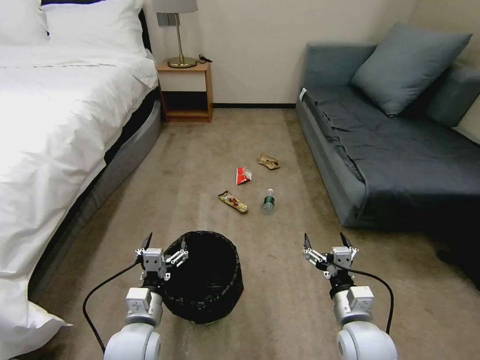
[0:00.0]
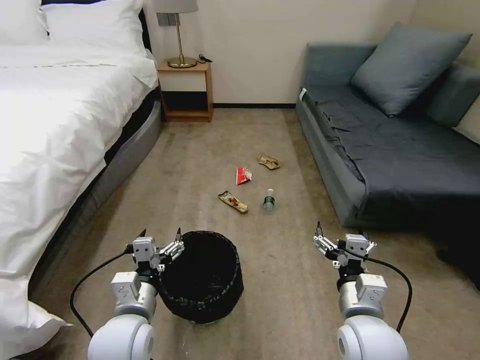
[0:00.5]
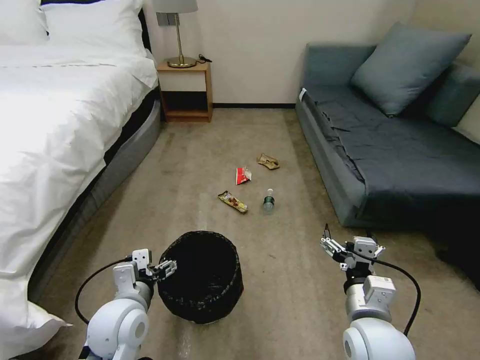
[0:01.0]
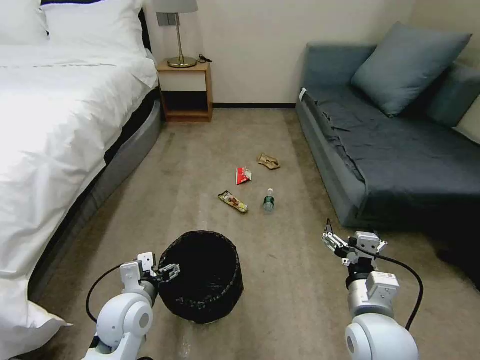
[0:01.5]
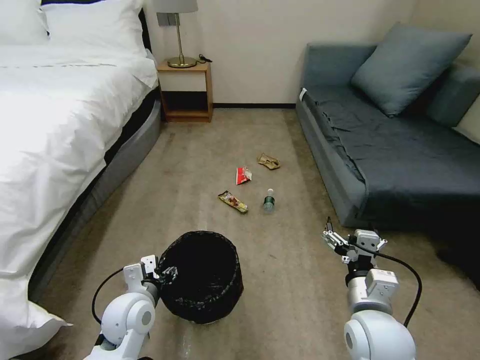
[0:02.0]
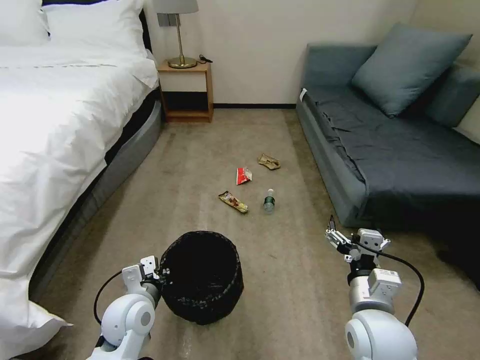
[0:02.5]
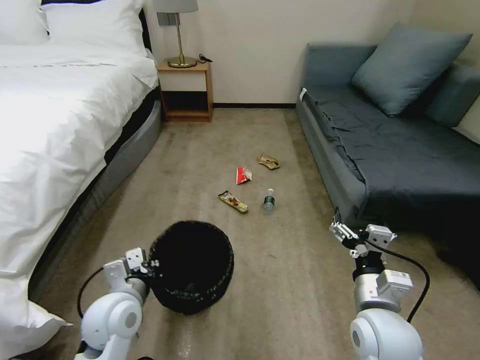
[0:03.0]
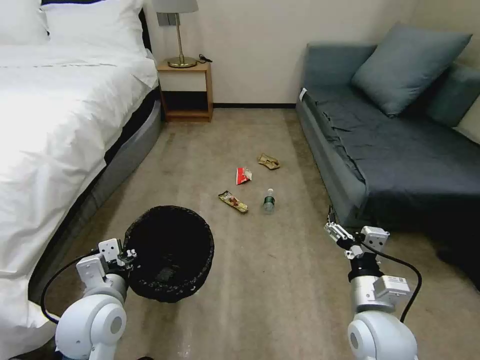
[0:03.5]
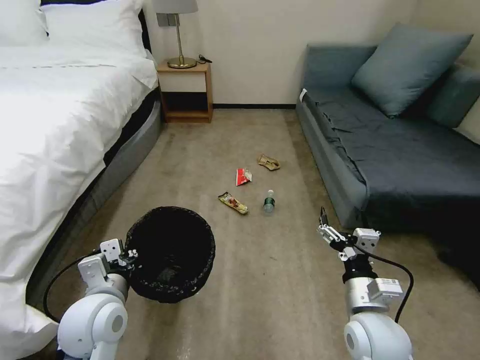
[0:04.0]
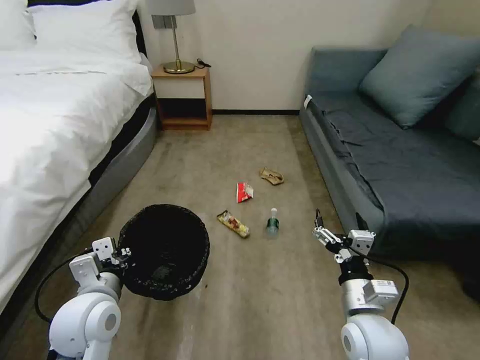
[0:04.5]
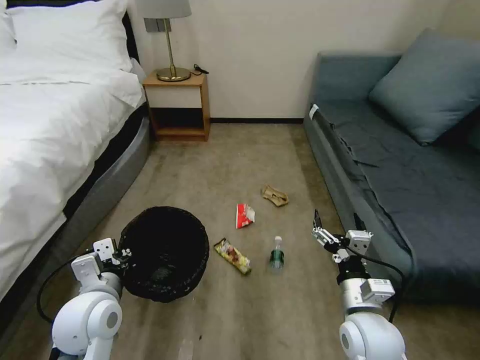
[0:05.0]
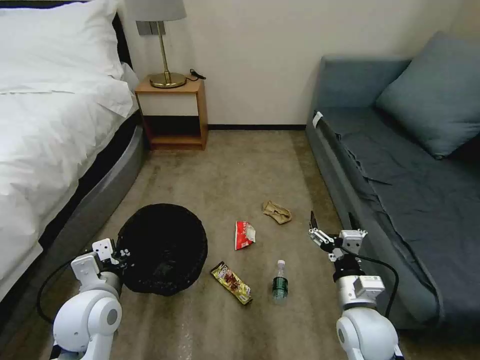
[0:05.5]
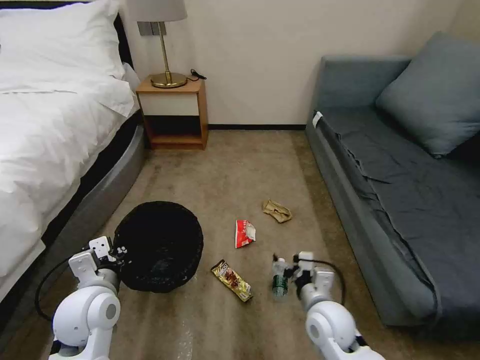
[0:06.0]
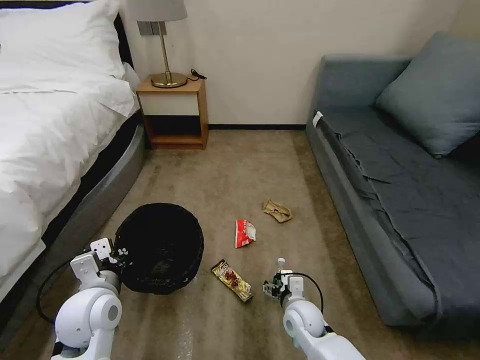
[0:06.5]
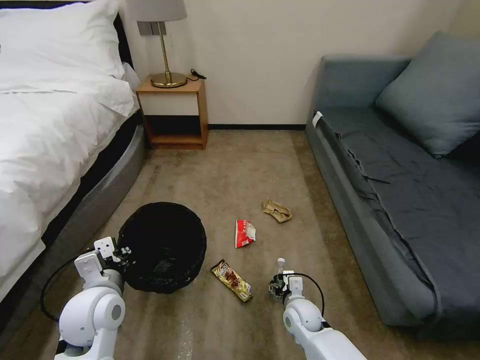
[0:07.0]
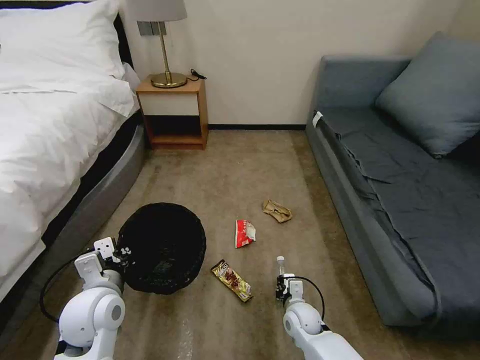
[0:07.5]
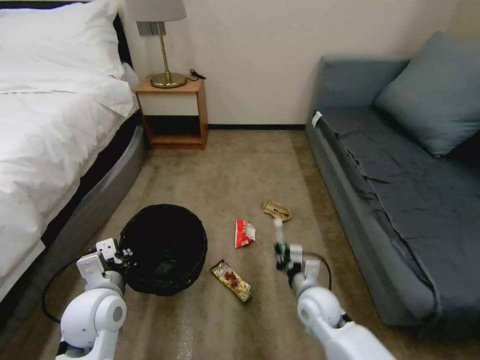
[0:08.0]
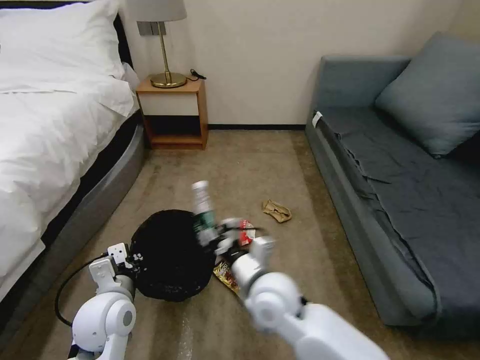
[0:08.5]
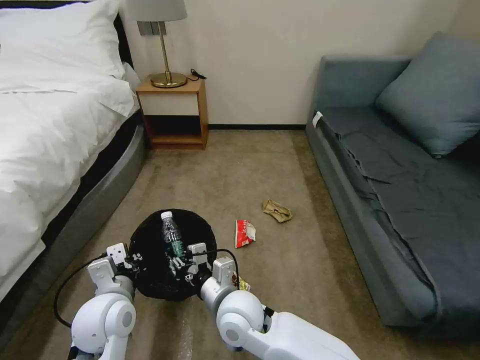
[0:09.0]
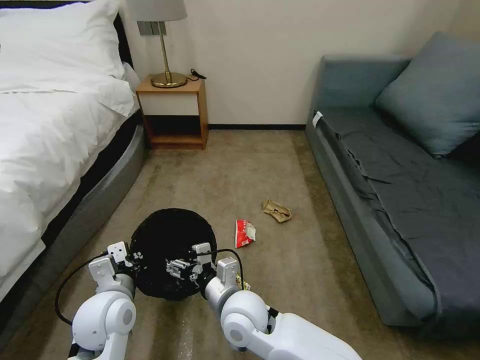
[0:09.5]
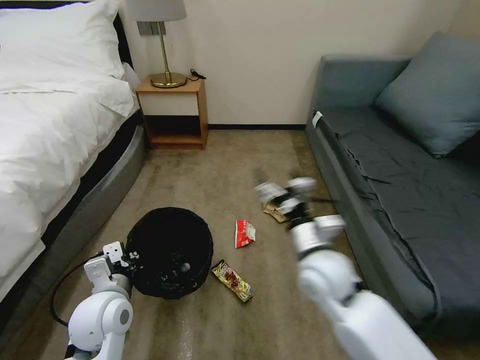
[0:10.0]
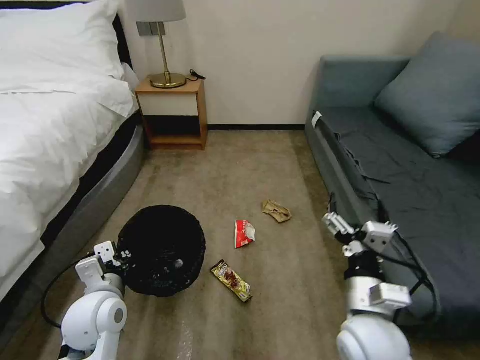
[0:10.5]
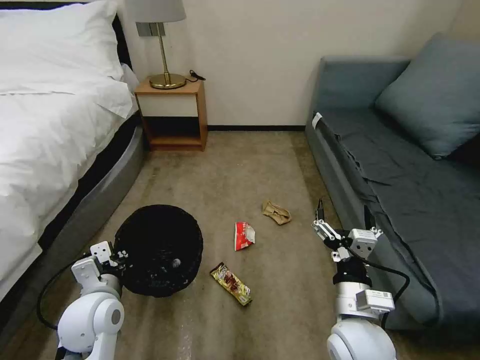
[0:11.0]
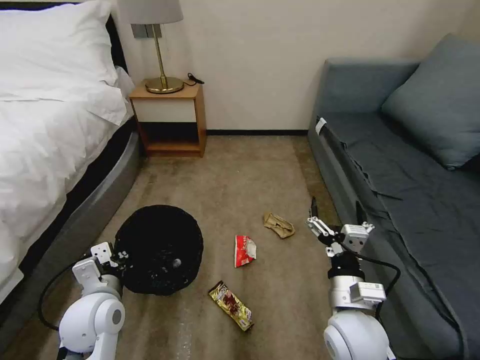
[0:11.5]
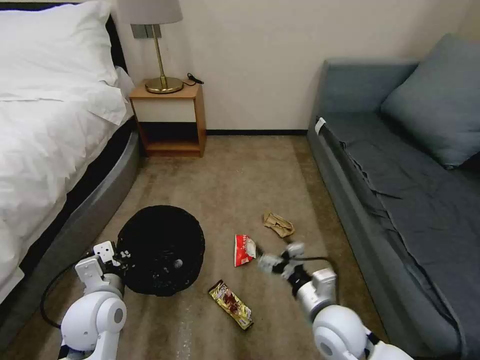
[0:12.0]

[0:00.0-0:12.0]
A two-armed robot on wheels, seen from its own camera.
Task of the whole recording: Pick up the trash bin, then pick up the garbage on the floor and place it into the trash bin.
0:02.0 to 0:04.0: The left gripper heads upward, covering approximately 10 cm, and closes up.
0:04.0 to 0:06.0: The right gripper goes approximately 5 cm downward.
0:06.0 to 0:08.0: The right gripper goes downward and returns, some 15 cm each way, and closes.
0:08.0 to 0:10.0: The right gripper is displaced upward by about 15 cm, moves some 20 cm to the left and comes back, and opens up.
0:10.0 to 0:12.0: The right gripper shifts roughly 10 cm downward and backward.

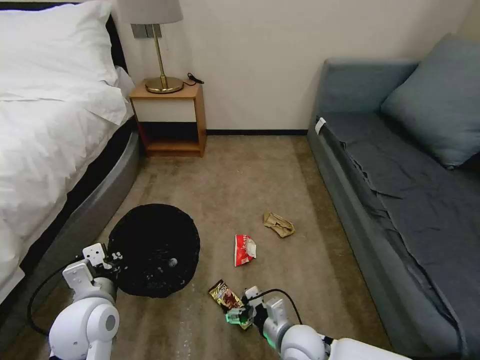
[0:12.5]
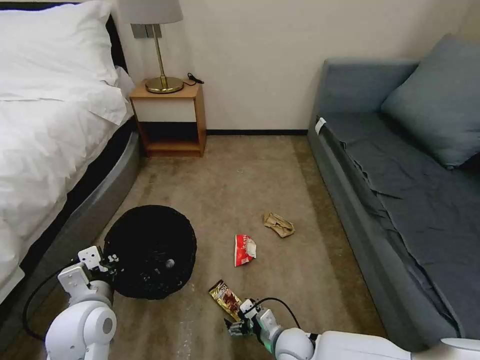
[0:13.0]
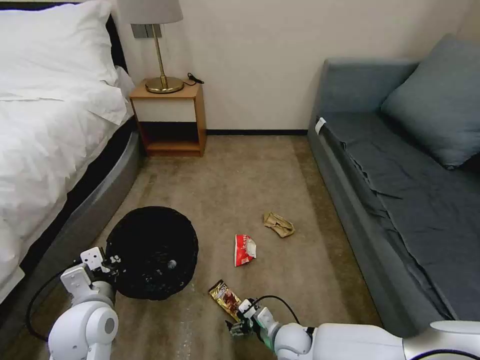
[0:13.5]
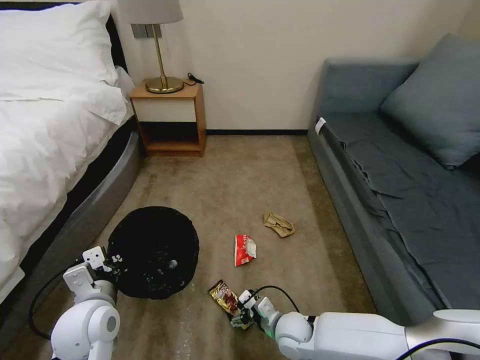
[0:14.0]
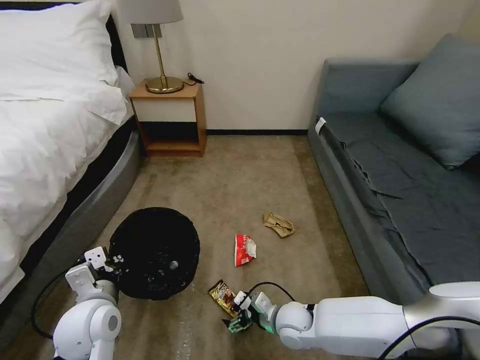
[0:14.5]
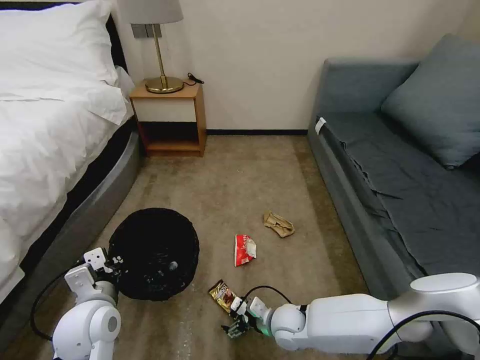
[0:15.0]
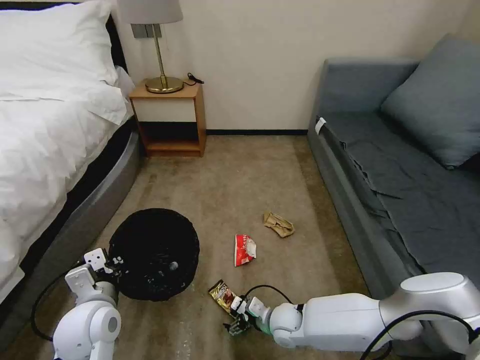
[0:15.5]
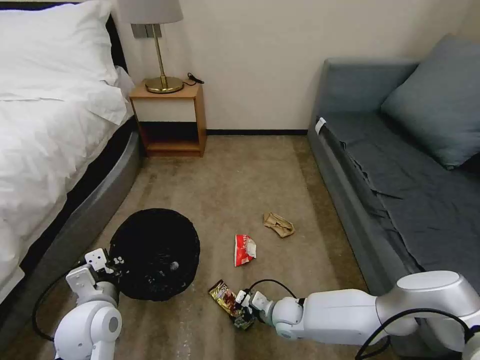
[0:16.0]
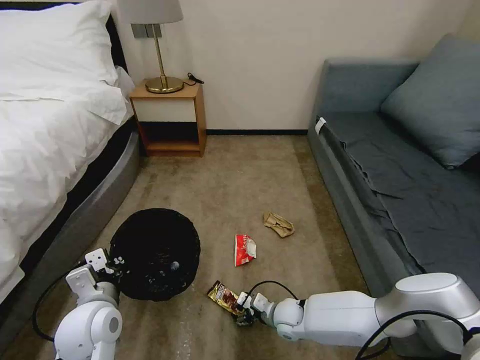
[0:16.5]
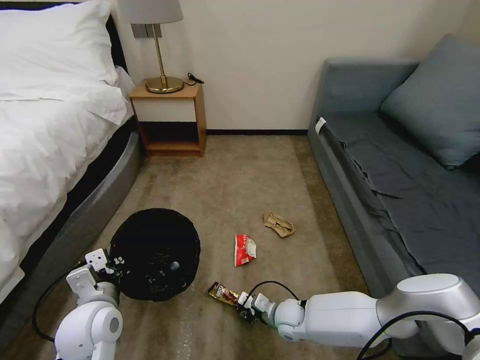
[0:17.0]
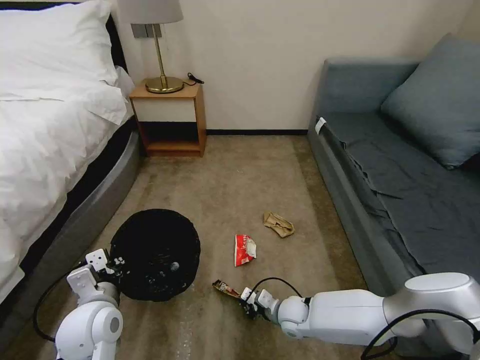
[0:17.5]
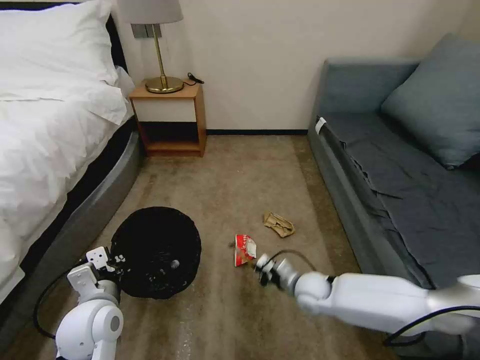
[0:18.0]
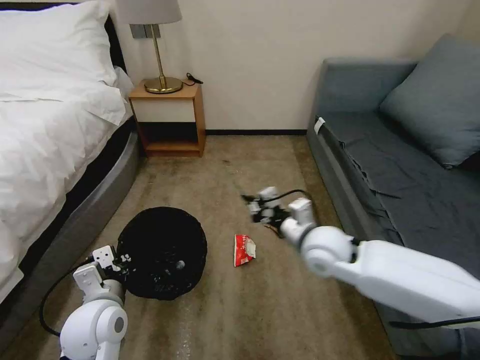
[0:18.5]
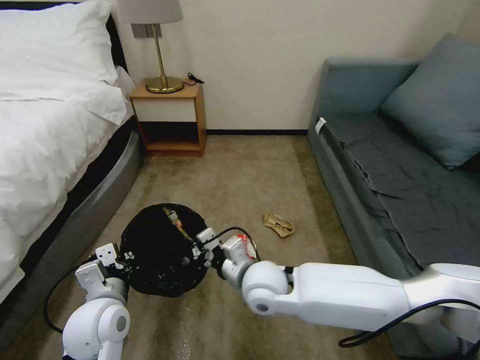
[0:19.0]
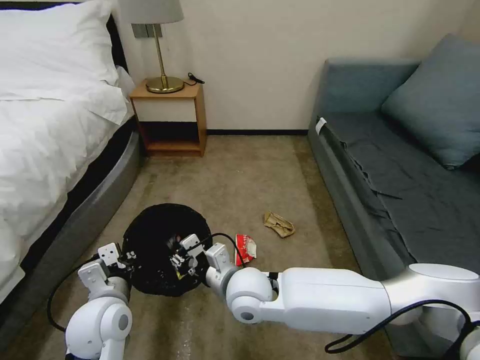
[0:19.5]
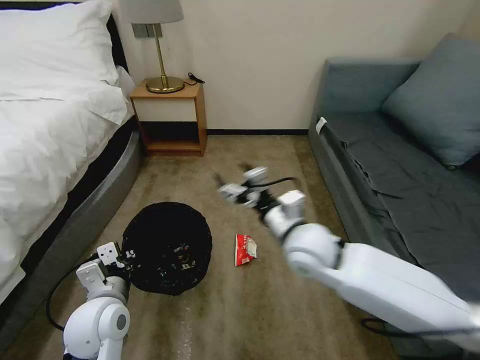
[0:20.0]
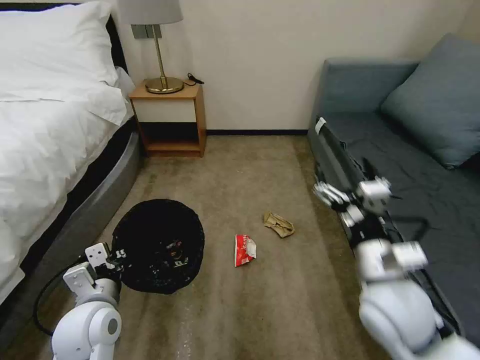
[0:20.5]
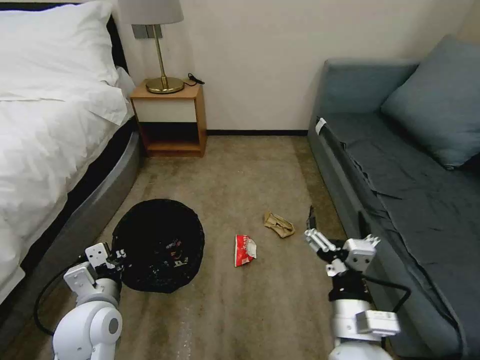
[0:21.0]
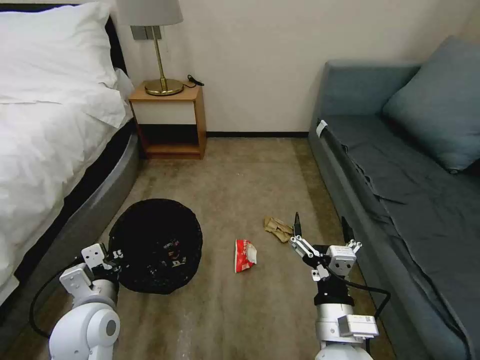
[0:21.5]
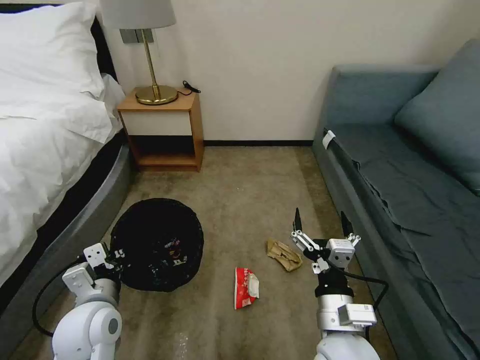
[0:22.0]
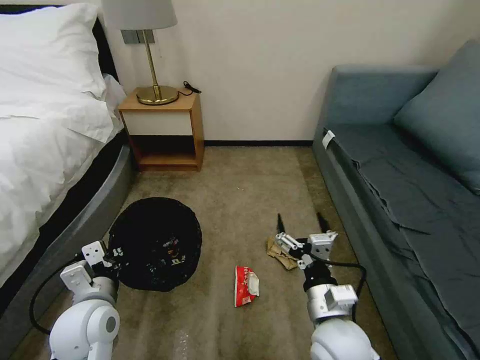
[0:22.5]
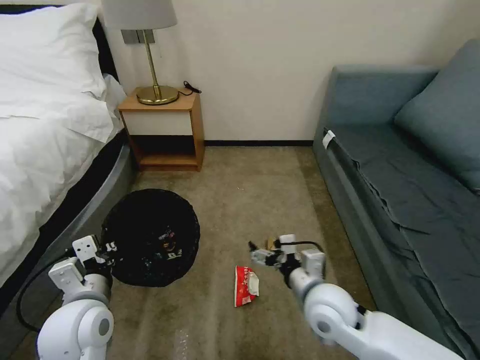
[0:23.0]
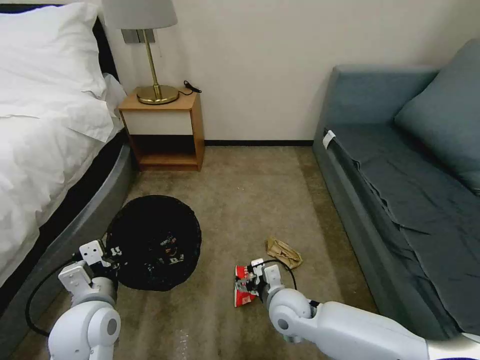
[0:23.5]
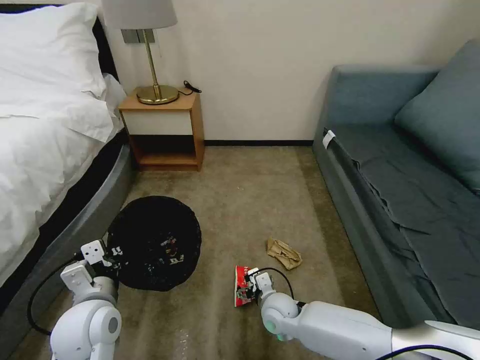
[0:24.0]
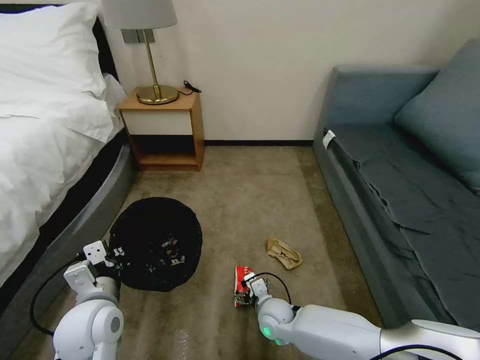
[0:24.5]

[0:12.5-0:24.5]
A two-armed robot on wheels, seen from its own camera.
Task of the whole recording: Pick up the trash bin, then pick up the garbage on the floor and place it into the trash bin.
0:12.5 to 0:14.5: The right gripper goes roughly 5 cm forward.
0:14.5 to 0:16.5: The right gripper travels downward by approximately 5 cm.
0:16.5 to 0:18.5: The right gripper shifts some 30 cm upward, and closes.
0:18.5 to 0:20.5: The right gripper moves backward, approximately 15 cm, reaches some 15 cm to the left, then returns, and opens up.
0:20.5 to 0:22.5: The right gripper heads downward and to the left, covering some 10 cm.
0:22.5 to 0:24.5: The right gripper shifts roughly 20 cm downward and forward.

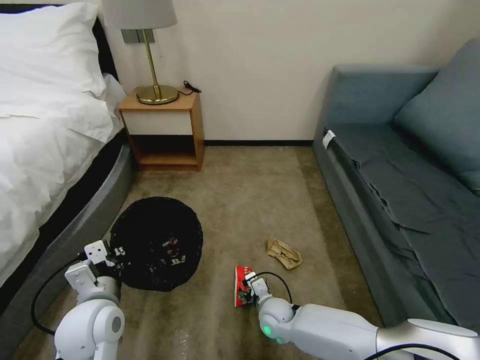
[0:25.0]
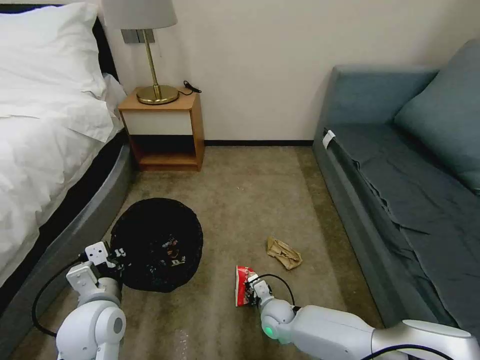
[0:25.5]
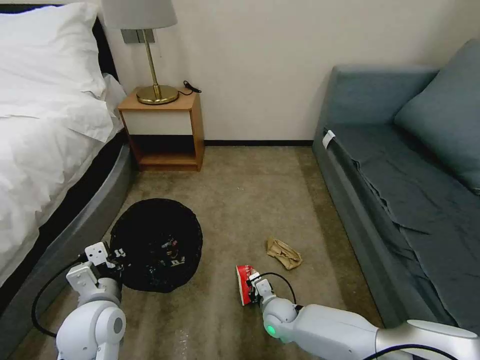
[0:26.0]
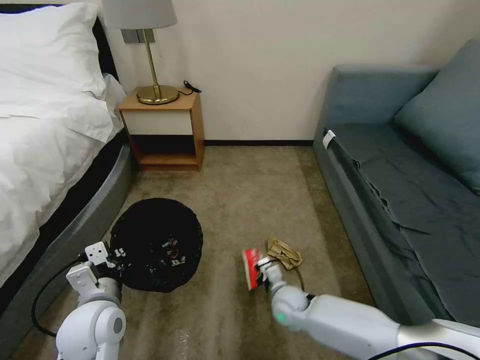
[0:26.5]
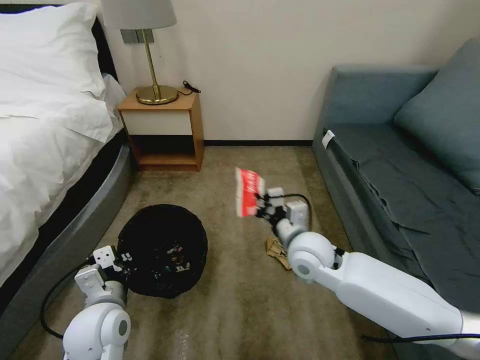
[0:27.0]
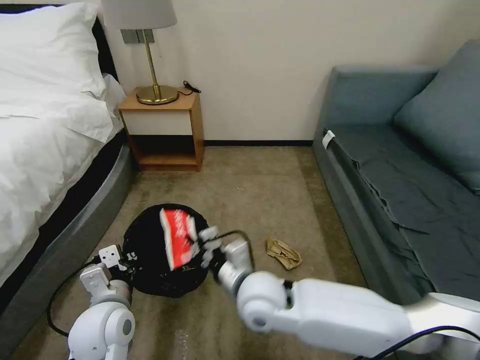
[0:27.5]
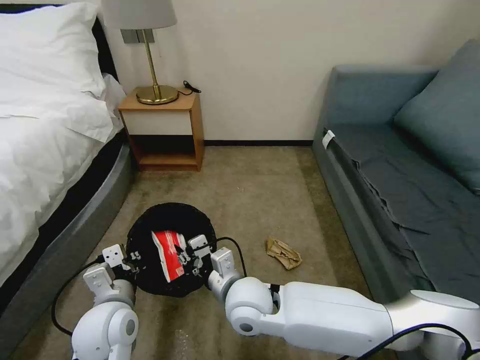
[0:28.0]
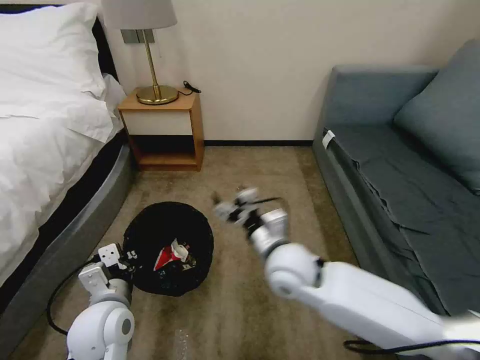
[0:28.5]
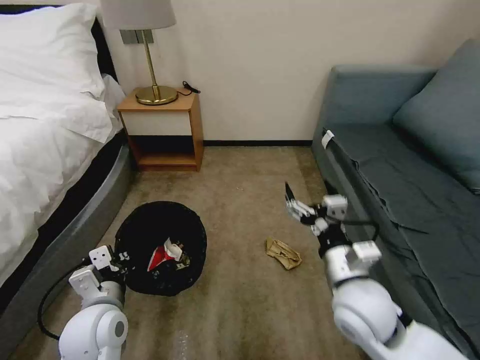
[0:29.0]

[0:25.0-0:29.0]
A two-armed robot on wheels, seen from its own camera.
Task of the whole recording: Pick up the trash bin, then pick up the garbage on the floor and place it into the trash bin.
0:25.0 to 0:27.0: The right gripper shifts approximately 25 cm upward, and closes up.
0:27.0 to 0:29.0: The right gripper is displaced backward by some 10 cm, moves about 15 cm to the left and comes back, and opens its fingers.
